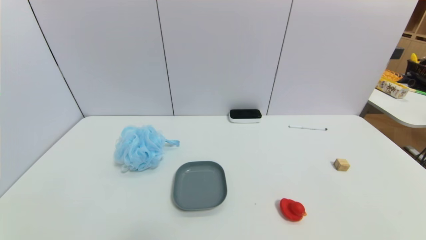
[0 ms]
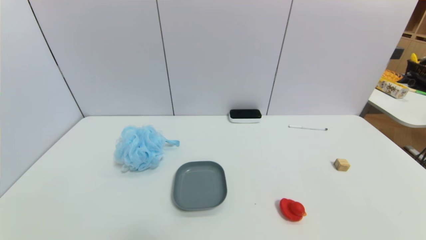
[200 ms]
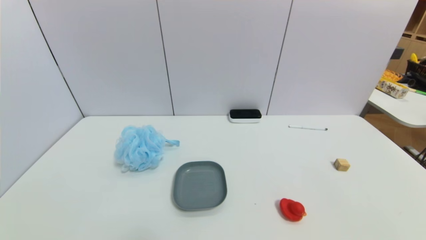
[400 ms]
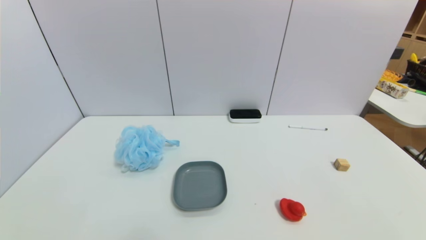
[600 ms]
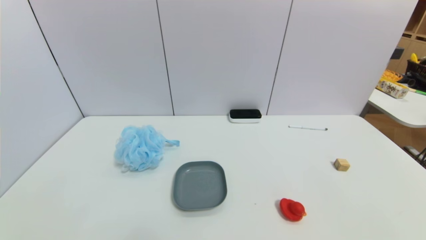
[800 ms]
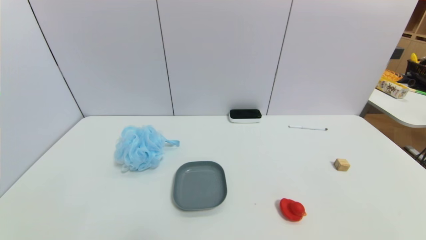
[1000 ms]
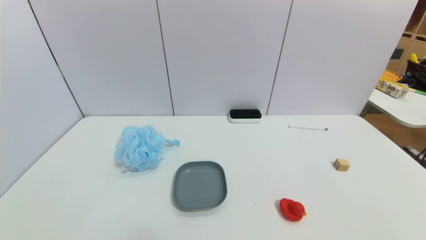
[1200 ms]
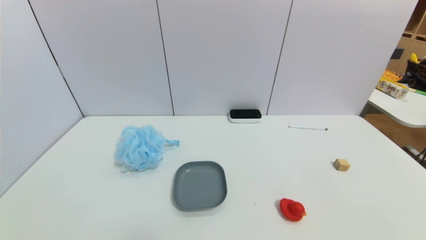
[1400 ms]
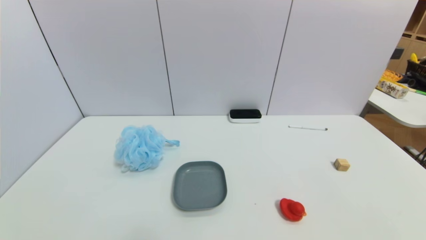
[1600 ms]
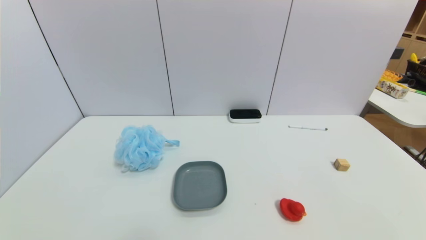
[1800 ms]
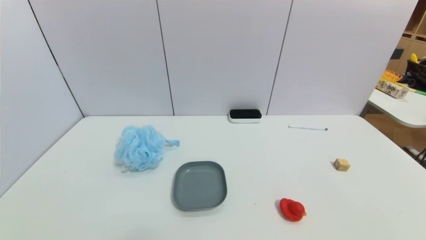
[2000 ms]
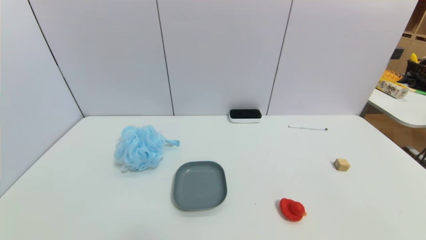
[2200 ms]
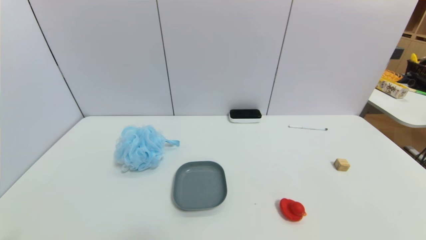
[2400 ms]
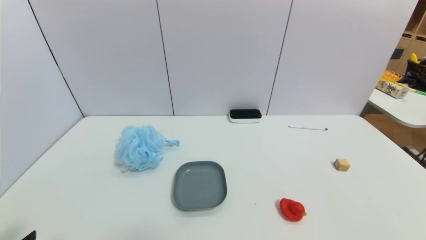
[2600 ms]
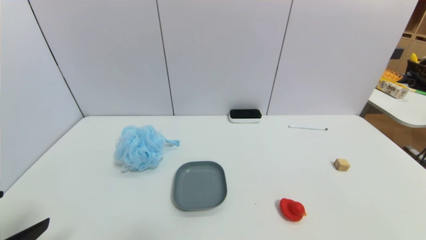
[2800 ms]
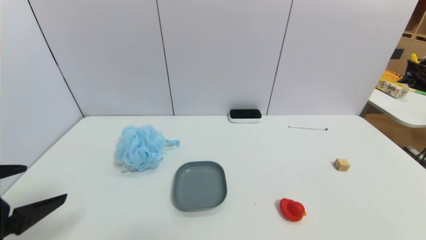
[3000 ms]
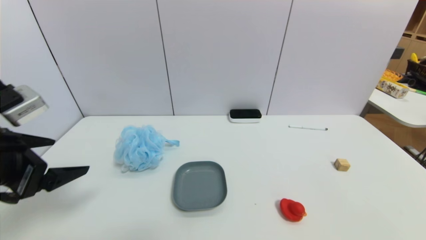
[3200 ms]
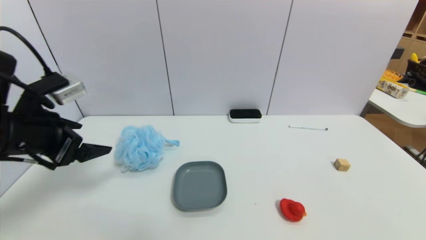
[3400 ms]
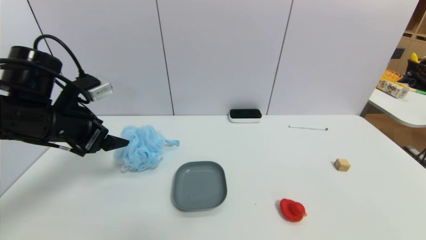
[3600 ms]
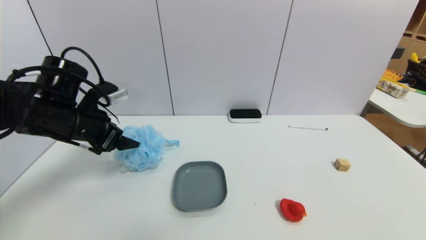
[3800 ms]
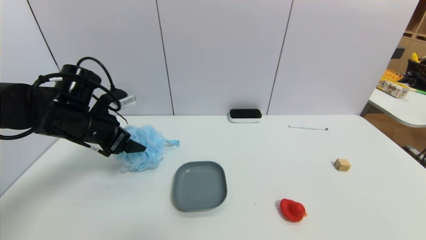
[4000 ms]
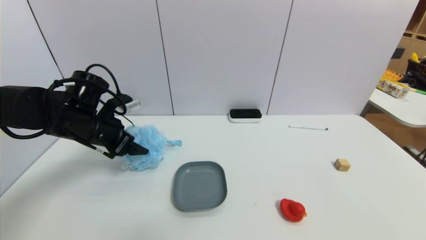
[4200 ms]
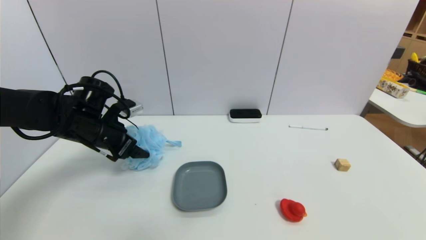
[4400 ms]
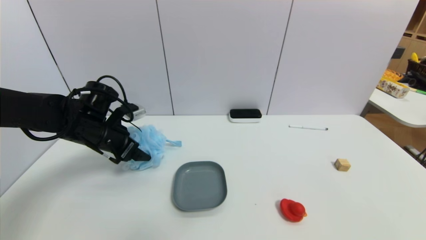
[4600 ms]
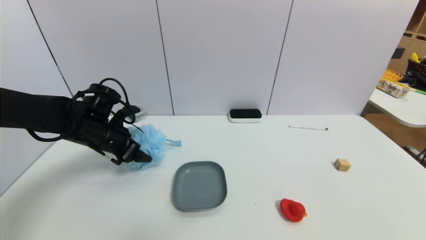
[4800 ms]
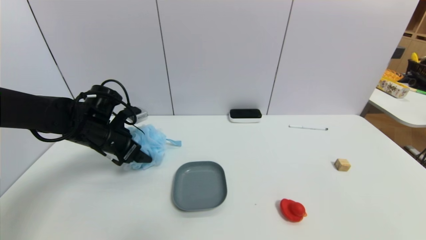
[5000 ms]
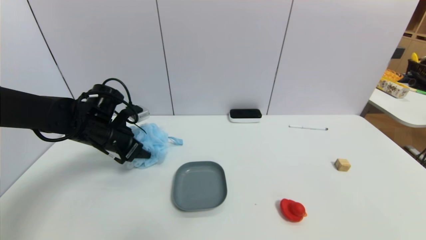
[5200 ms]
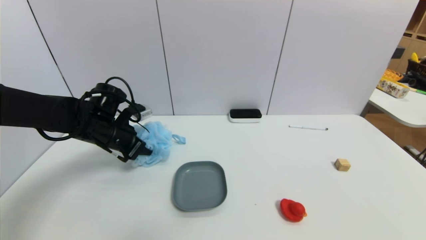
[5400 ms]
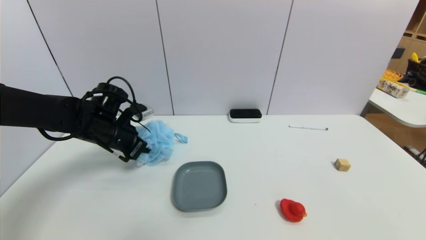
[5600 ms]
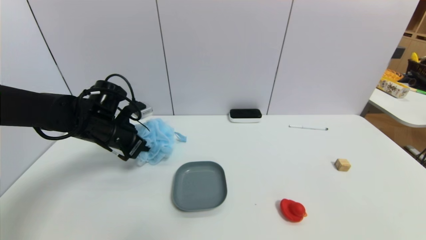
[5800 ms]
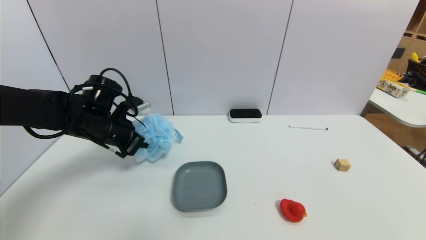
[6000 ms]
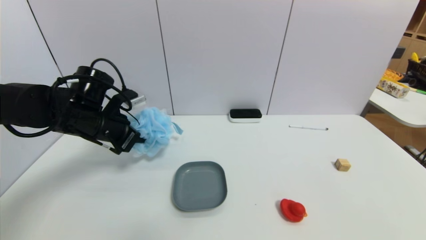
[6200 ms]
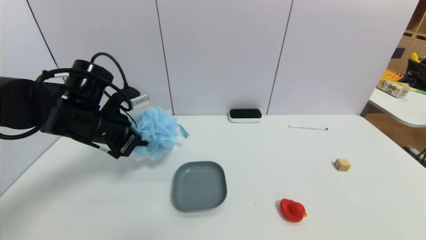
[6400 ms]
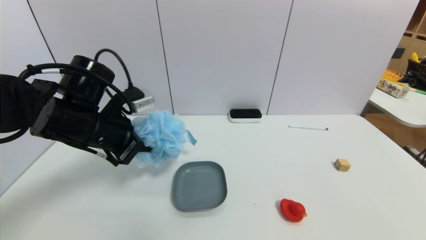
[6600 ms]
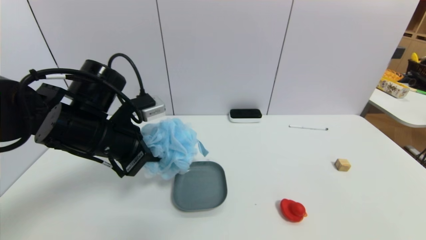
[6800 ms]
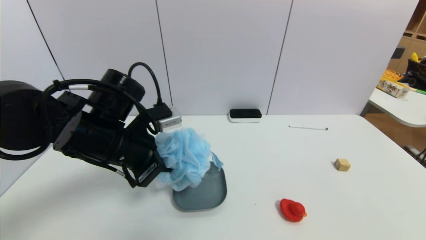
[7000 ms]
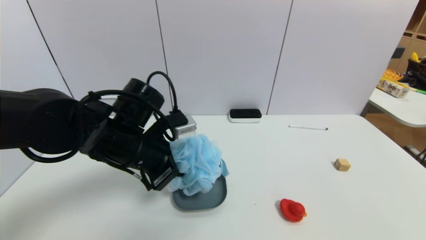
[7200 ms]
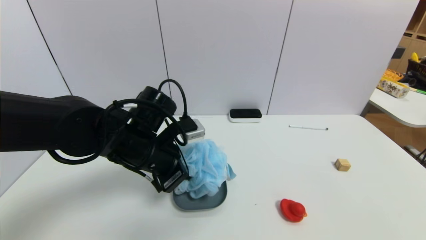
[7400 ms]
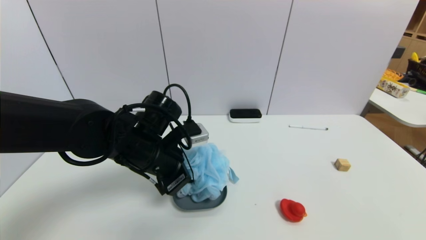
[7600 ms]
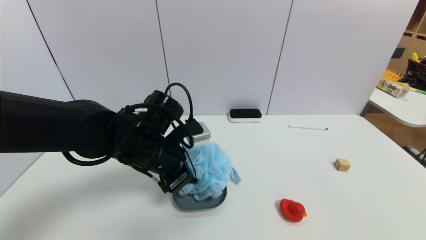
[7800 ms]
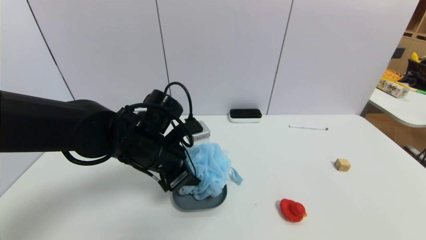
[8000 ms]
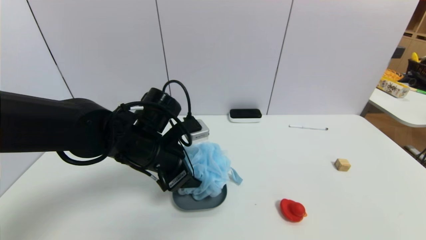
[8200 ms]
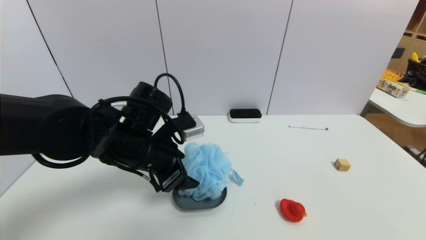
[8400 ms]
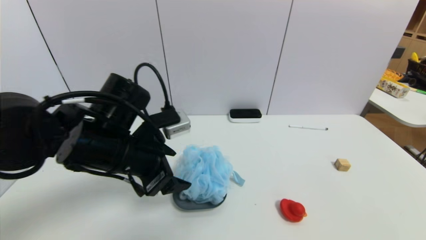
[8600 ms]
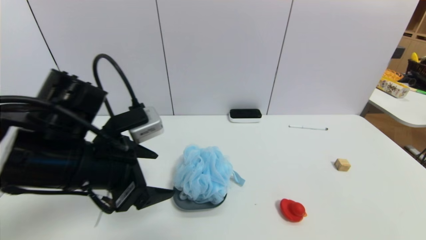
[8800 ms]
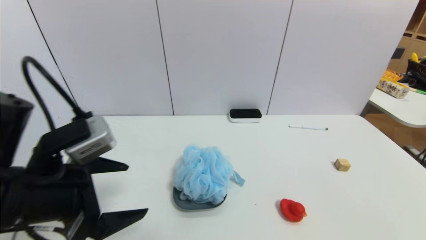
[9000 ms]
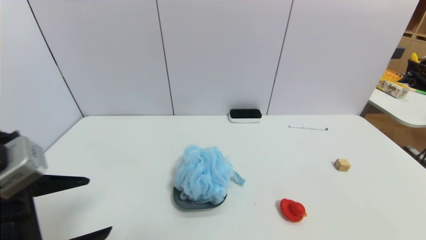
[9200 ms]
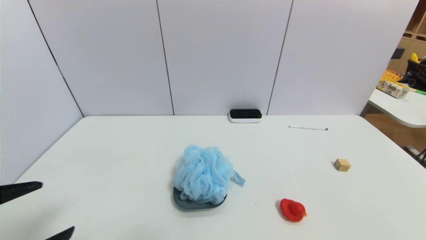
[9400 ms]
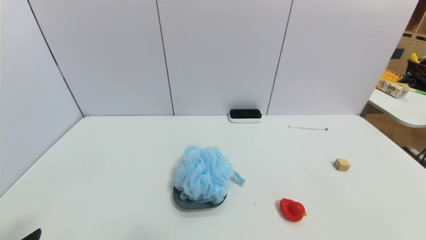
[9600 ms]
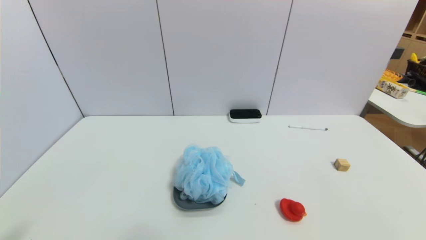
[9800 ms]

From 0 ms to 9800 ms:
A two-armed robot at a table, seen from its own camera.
Task of the whole recording: use a gripper to pick the target object and place on the dish.
Step, from 0 ms to 5400 ms: Grasp the shower sphere with the left gripper.
Step, from 5600 ms to 8600 ms: Place the shower sphere on the dish with the left gripper.
From 0 ms to 1400 ms: Neither gripper changes place.
From 1400 ms to 2800 ms: The left gripper heads upward and forward, covering about 15 cm.
From 2800 ms to 4200 ms: The left gripper heads forward, covering approximately 25 cm.
From 4200 ms to 5600 ms: The left gripper closes up.
From 5600 ms to 7000 ms: The left gripper travels backward, to the right and upward by about 15 cm.
From 7000 ms to 8400 ms: The left gripper opens up.
From 8400 ms to 9800 ms: The left gripper shifts about 30 cm backward and to the left.

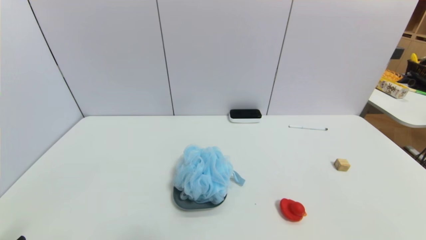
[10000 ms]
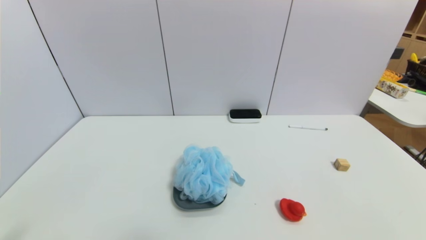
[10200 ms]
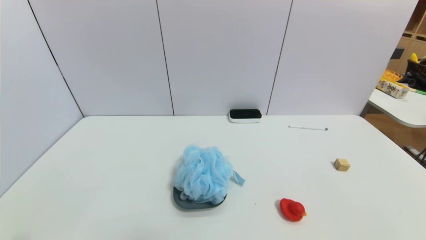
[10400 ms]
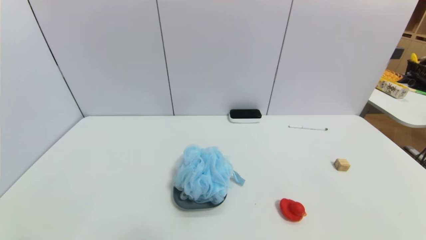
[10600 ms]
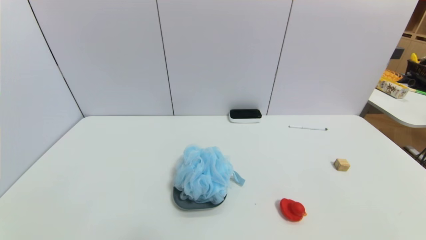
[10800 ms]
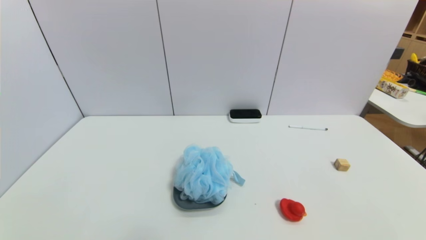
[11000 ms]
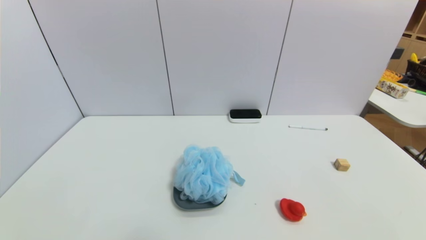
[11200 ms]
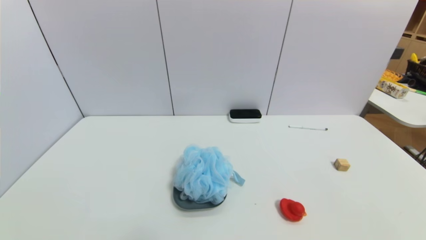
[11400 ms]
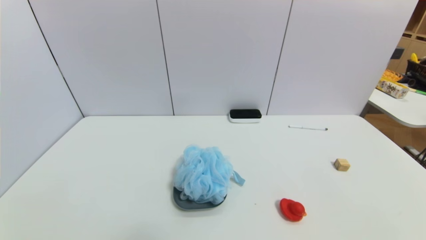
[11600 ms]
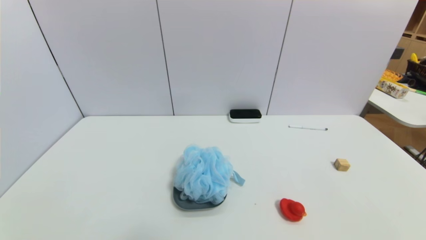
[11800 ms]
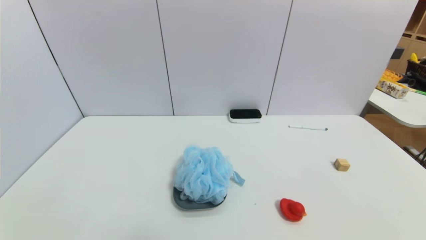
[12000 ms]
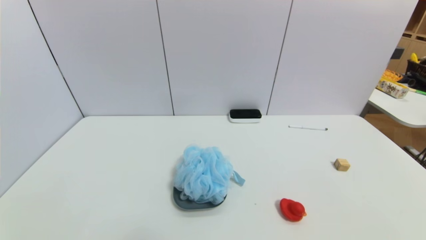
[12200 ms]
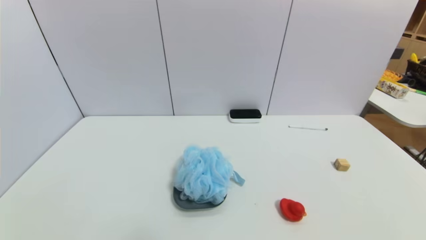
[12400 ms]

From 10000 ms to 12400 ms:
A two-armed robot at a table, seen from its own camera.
Task of the whole recording: use a gripper to pick the target object and place on the dish.
From 11200 ms to 12400 ms: The two grippers keep their place.
